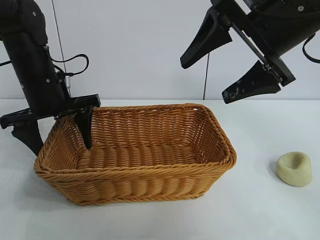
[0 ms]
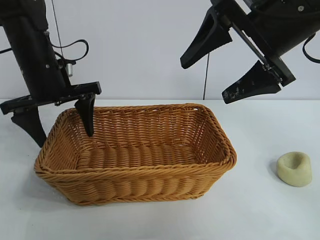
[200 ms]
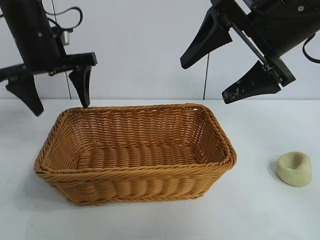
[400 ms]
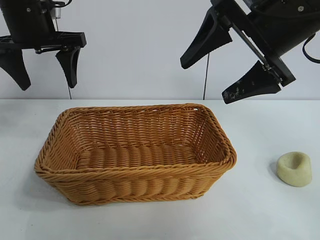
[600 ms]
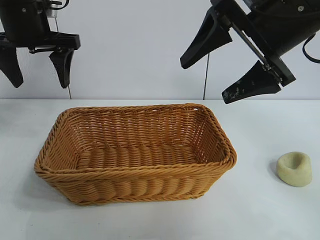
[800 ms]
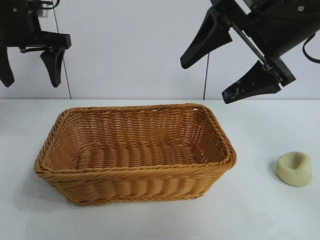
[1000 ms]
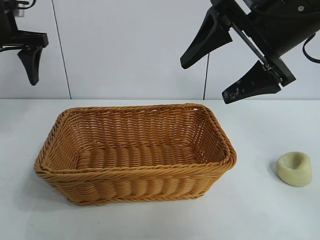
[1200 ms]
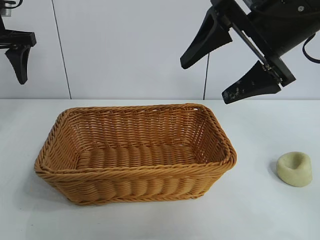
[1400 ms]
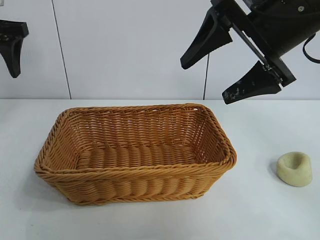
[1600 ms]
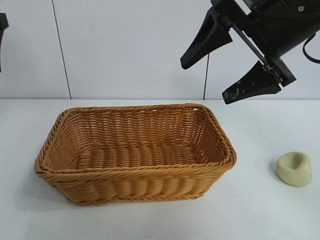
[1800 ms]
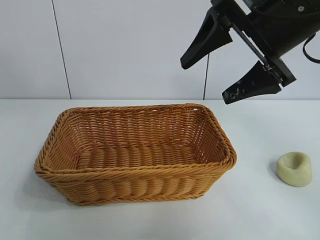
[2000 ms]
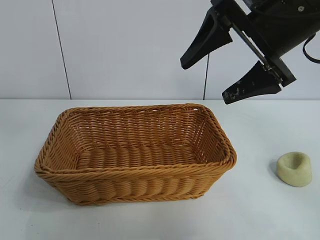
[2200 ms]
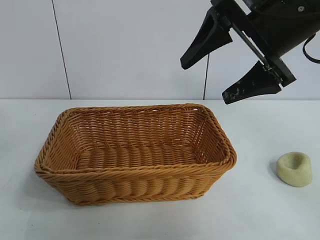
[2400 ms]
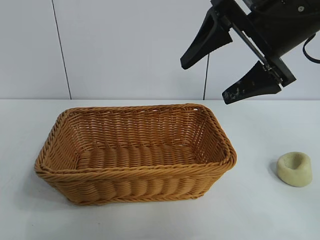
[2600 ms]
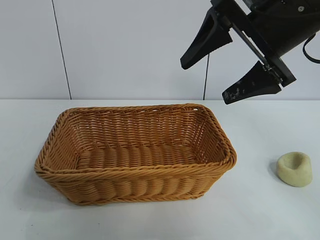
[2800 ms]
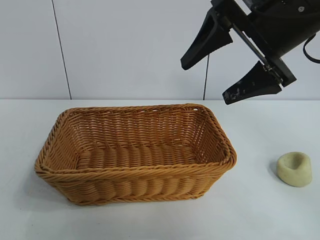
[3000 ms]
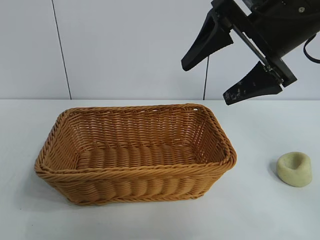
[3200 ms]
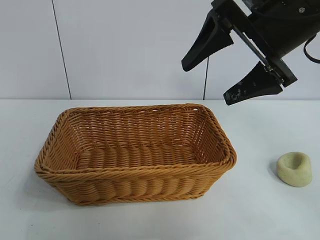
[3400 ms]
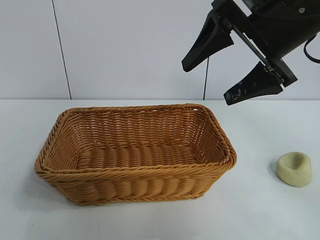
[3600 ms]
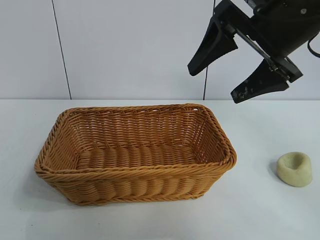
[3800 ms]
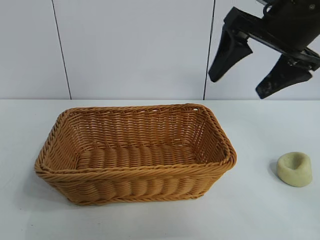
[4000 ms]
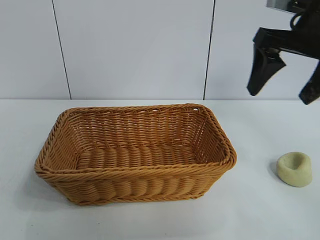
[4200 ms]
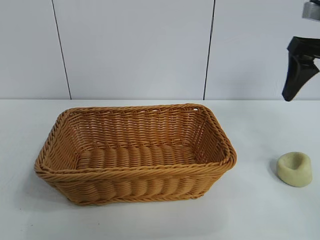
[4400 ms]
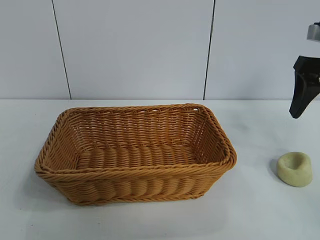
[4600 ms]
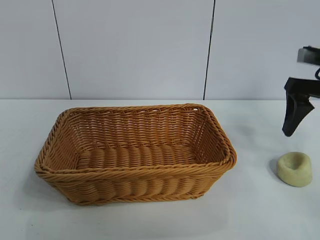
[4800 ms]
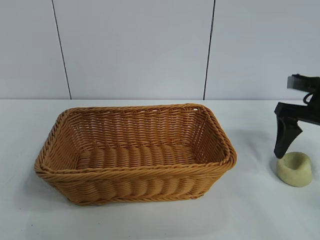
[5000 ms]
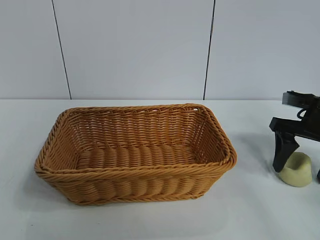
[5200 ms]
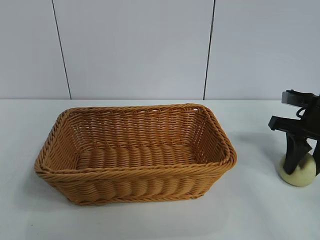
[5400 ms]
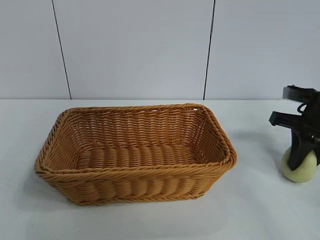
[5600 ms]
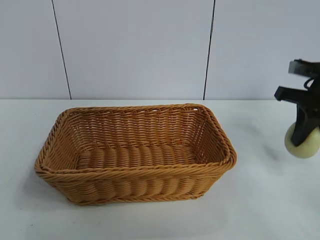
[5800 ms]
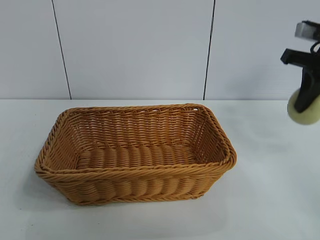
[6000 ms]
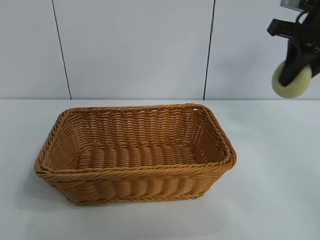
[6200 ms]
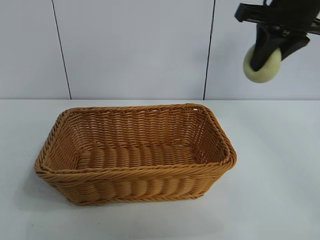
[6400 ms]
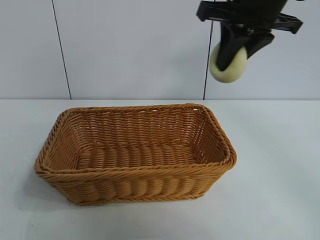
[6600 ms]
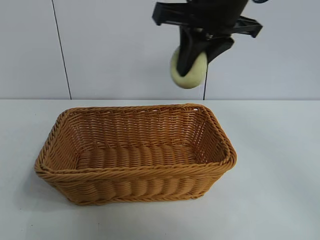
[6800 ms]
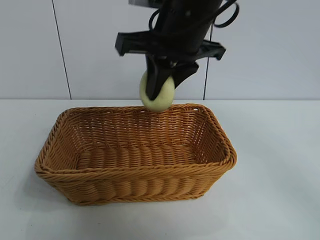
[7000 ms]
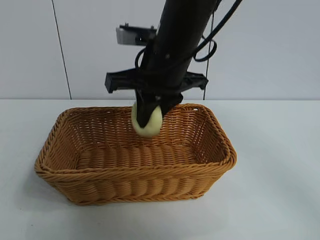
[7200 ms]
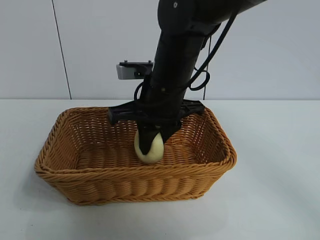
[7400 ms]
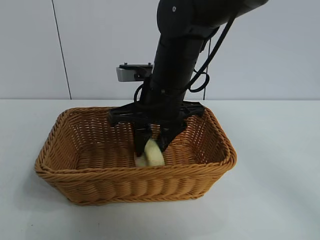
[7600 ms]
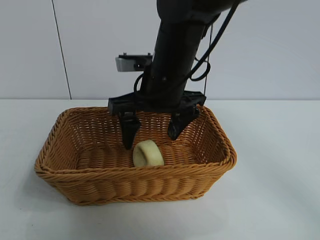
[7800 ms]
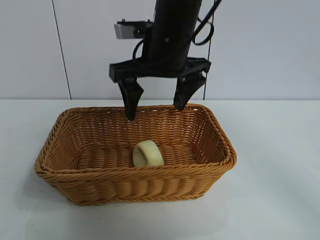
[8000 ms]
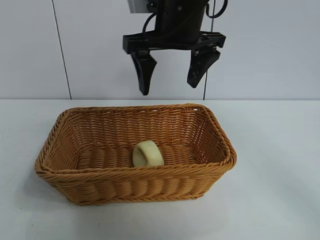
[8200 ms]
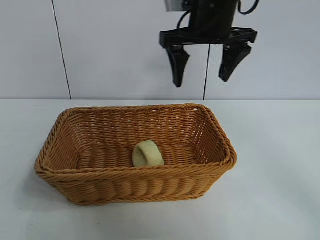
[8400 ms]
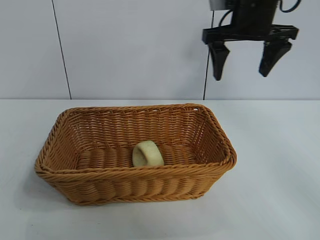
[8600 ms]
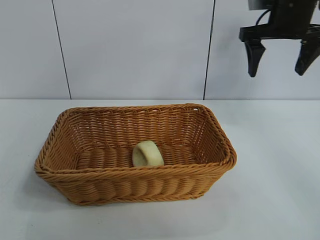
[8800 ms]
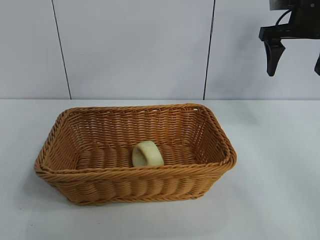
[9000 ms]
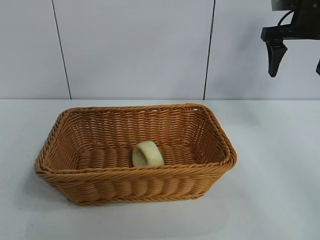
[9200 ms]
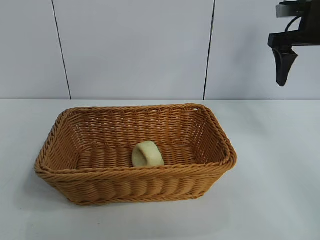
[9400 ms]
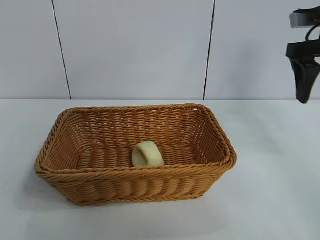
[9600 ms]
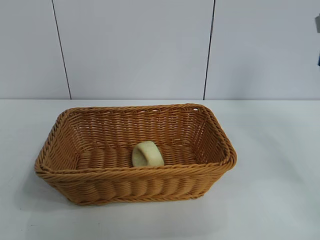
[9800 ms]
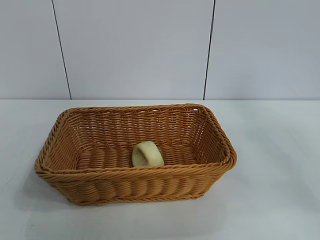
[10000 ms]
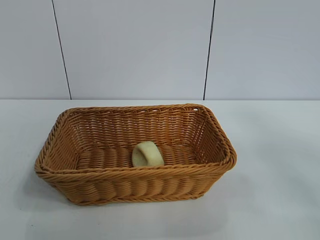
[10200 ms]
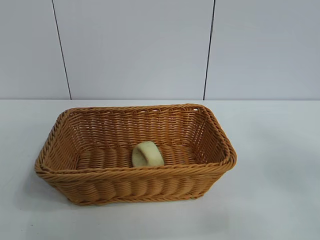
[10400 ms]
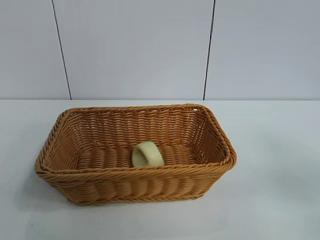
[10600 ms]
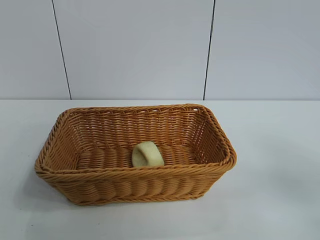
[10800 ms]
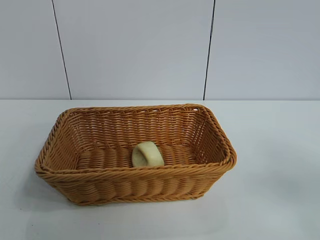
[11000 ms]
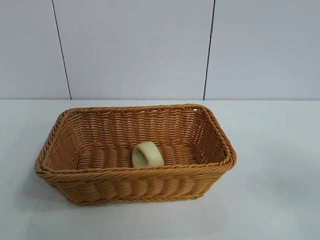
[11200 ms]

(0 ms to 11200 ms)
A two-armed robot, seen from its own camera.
Task of the whole recording: pick up the egg yolk pastry and put it into the basket.
Step, 0 ms - 5400 ms: Grasp egg yolk pastry with right gripper.
Step, 5600 ms - 7600 ms: Place the egg yolk pastry in the basket with right gripper.
